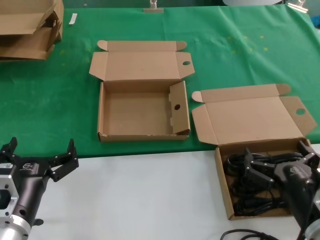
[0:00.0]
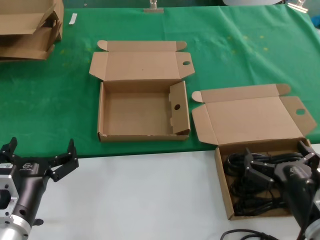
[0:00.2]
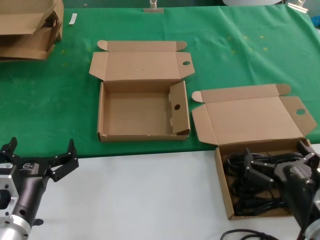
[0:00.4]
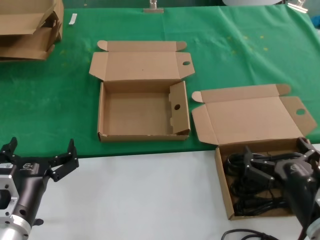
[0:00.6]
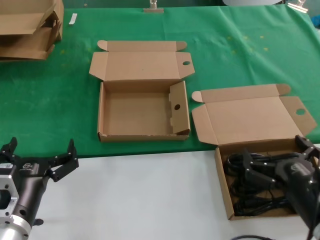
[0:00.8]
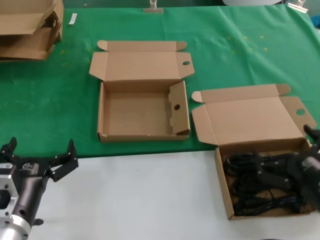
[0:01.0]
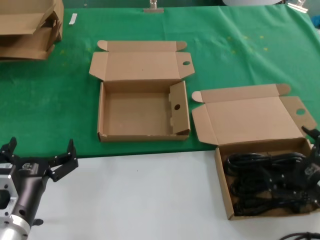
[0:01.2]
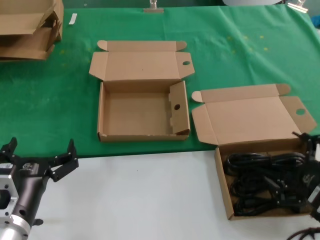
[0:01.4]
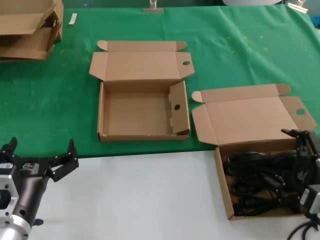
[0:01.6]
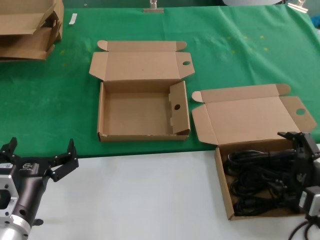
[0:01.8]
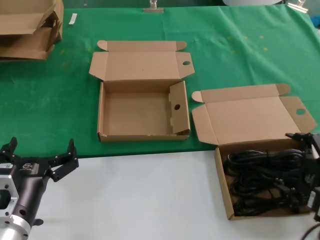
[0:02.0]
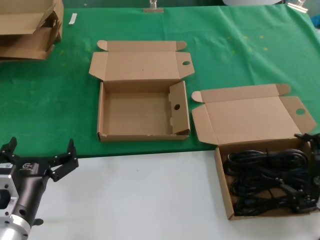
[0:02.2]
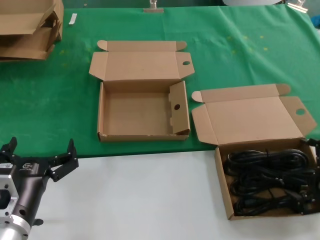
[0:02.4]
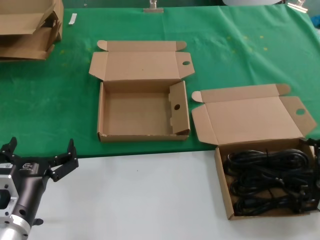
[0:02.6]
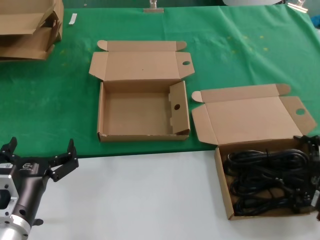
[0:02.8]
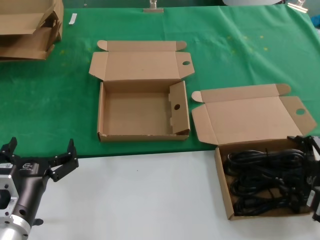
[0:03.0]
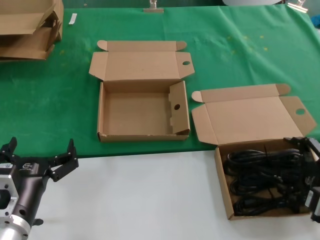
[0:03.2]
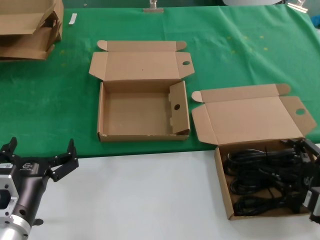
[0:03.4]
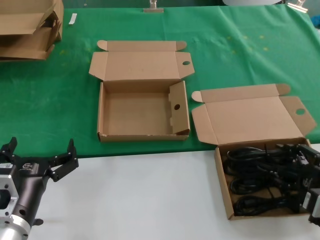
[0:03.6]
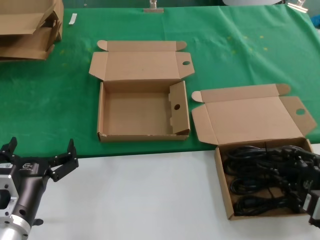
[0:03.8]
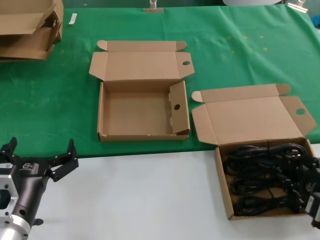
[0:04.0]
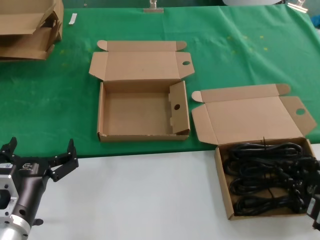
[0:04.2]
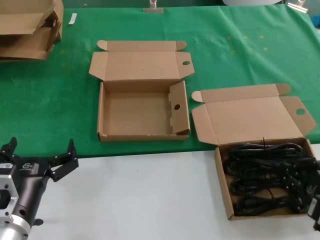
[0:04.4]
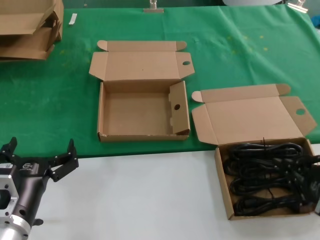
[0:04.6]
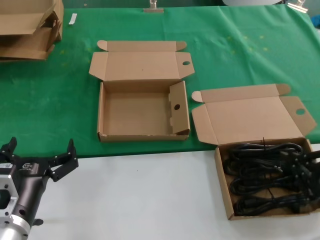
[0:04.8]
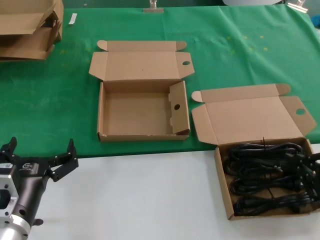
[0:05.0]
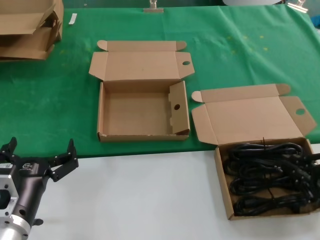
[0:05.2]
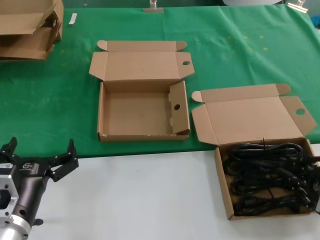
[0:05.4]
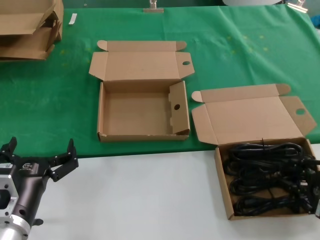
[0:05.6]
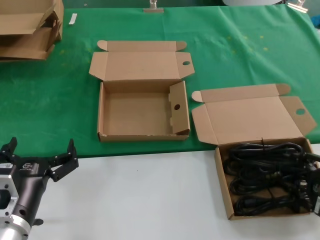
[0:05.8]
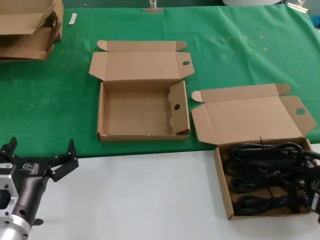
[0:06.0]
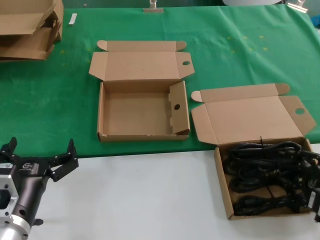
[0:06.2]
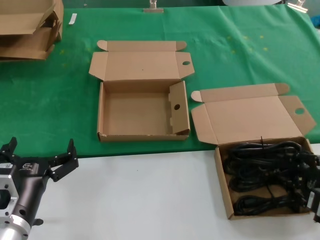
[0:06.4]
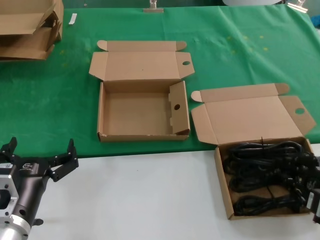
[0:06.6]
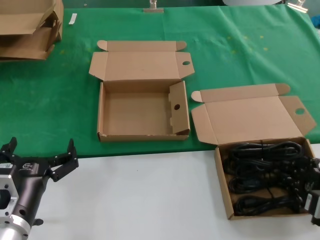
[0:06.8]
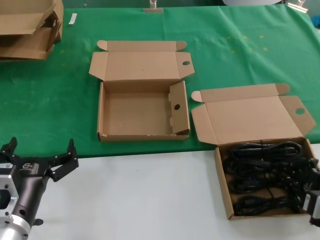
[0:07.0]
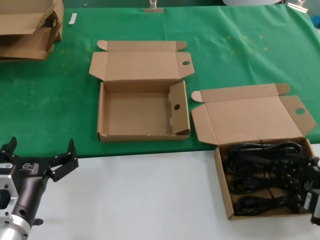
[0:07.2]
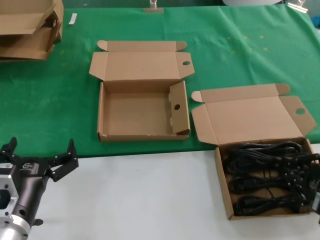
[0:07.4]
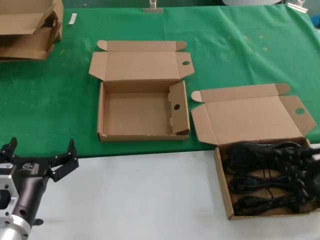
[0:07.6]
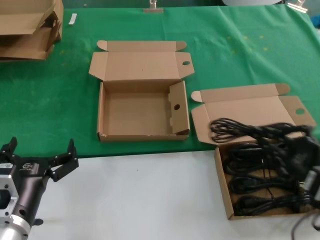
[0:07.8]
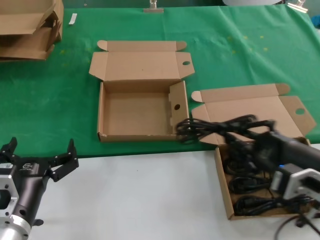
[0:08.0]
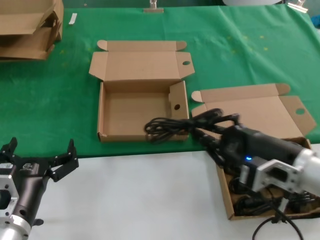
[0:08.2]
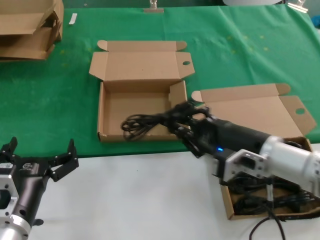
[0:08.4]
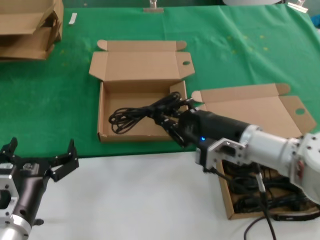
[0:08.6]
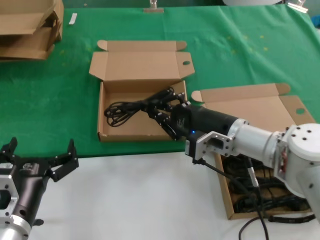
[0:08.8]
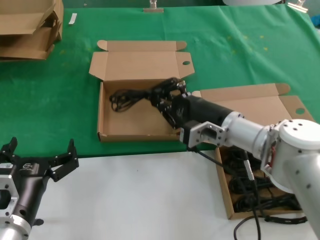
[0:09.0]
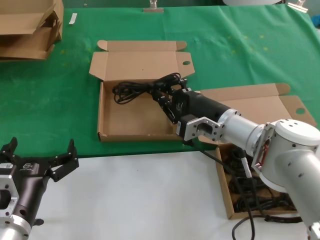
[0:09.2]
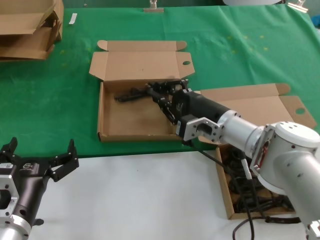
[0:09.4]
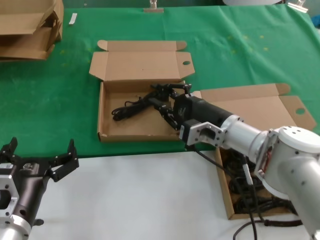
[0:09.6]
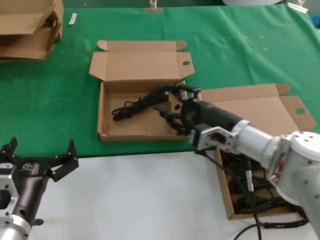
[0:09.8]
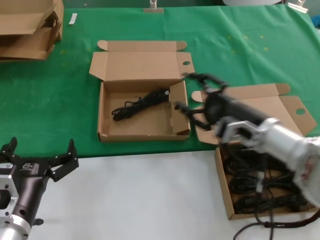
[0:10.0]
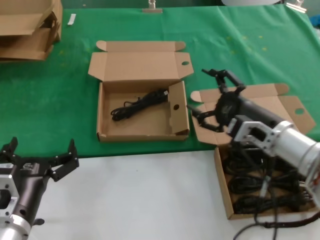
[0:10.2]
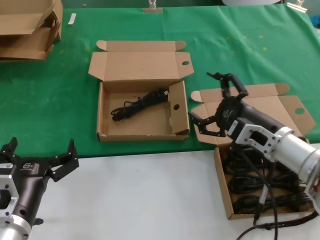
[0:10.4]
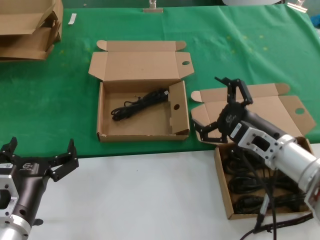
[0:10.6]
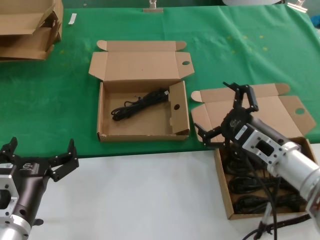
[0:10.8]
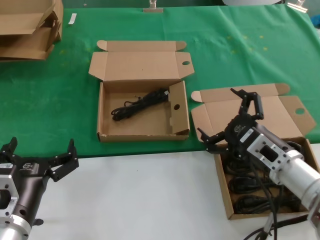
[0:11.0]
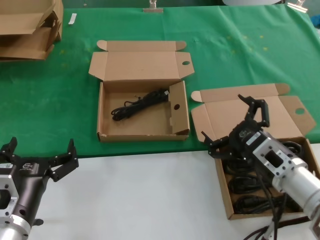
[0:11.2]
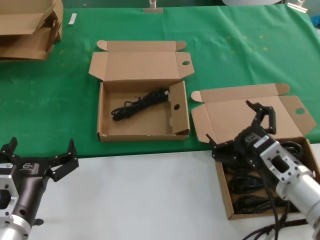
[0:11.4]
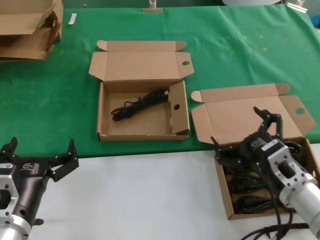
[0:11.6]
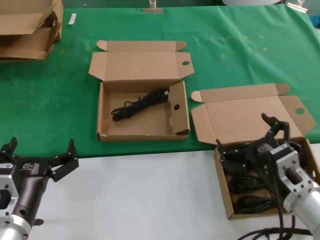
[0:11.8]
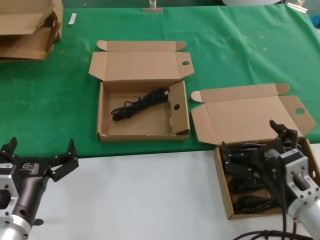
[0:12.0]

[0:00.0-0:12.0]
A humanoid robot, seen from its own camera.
Task of the whole recording: take the parts from the box containing them and put them into an empty box.
Step, 0:00.0 to 0:06.2: Grasp the data cable.
Step, 0:06.6 to 0:09.4: Place the data cable in the another box.
0:00.0 to 0:01.6: The right hand is displaced to the right by about 10 cm.
0:01.6 to 0:04.4: The hands make only small movements.
0:06.0 to 0:07.6: The right hand ends up about 5 cm from where it was.
0:07.6 to 0:09.0: The right hand goes roughly 30 cm forward and to the left.
0:09.0 to 0:10.4: The right hand shifts approximately 5 cm to the right.
0:10.4 to 0:12.0: The right hand shifts some 15 cm backward and downward.

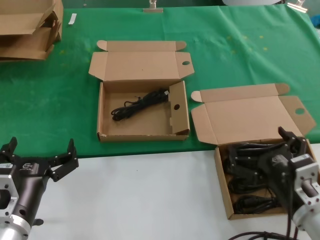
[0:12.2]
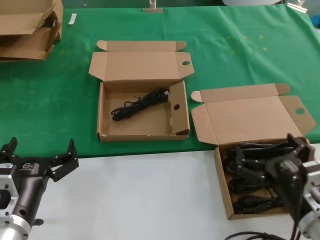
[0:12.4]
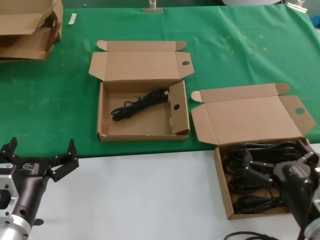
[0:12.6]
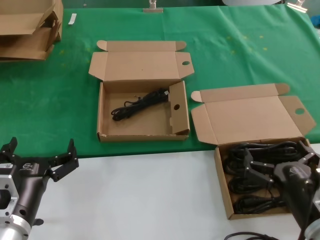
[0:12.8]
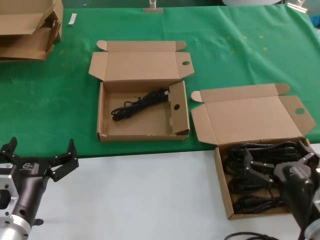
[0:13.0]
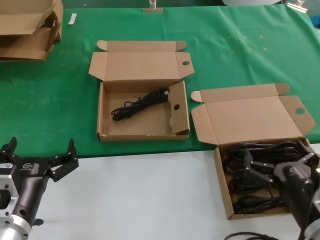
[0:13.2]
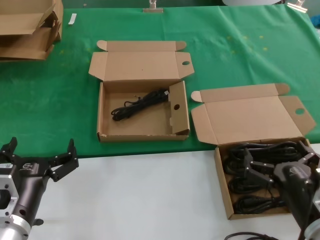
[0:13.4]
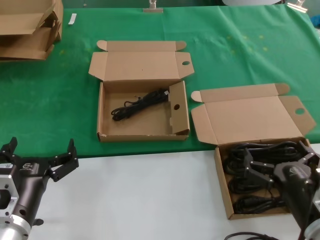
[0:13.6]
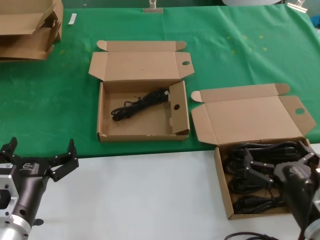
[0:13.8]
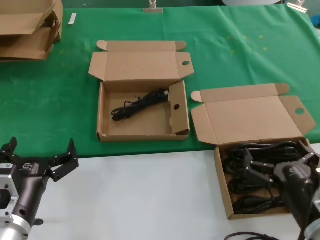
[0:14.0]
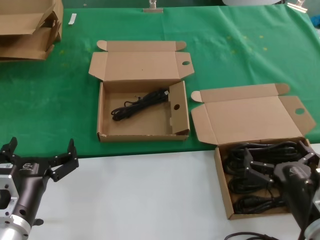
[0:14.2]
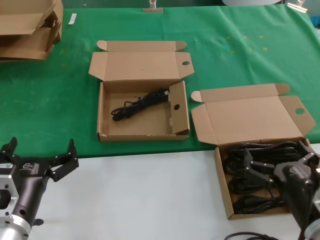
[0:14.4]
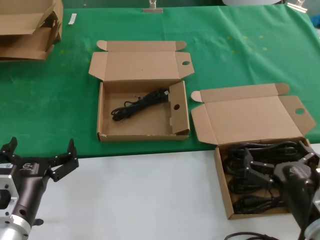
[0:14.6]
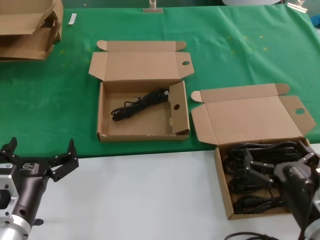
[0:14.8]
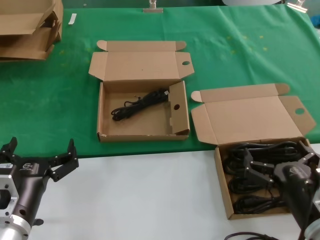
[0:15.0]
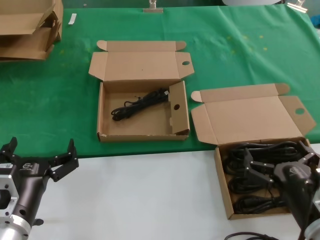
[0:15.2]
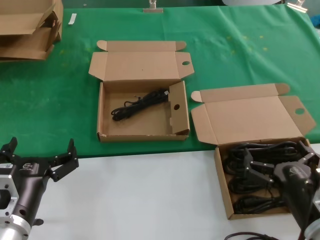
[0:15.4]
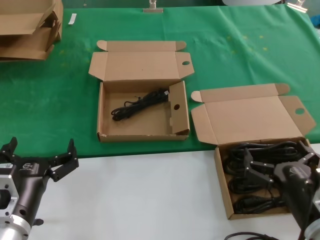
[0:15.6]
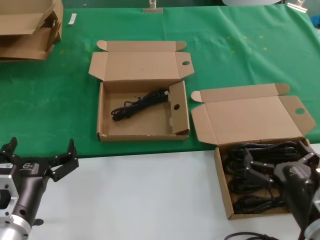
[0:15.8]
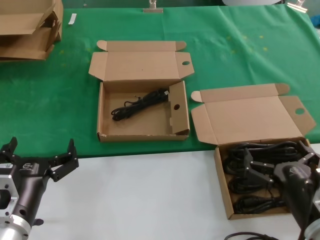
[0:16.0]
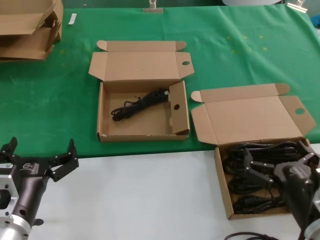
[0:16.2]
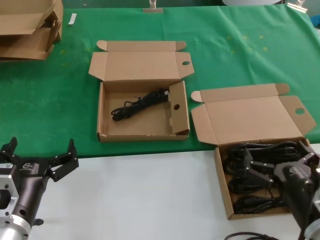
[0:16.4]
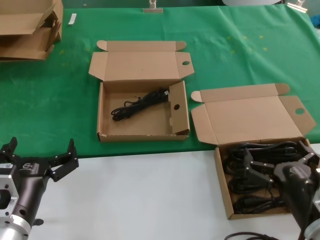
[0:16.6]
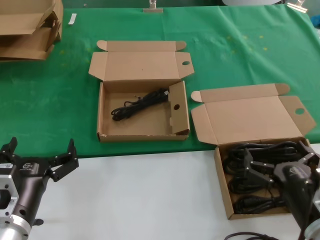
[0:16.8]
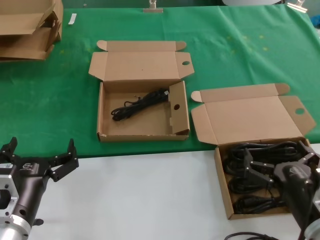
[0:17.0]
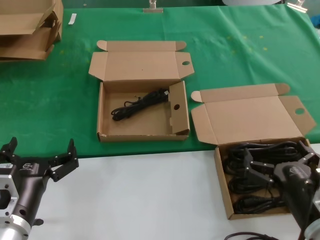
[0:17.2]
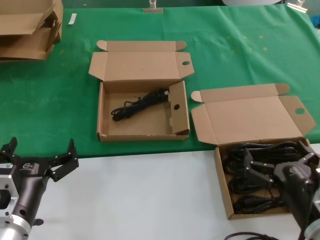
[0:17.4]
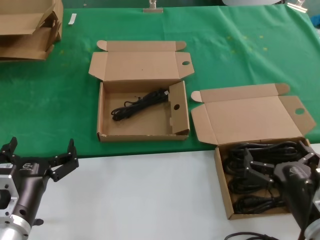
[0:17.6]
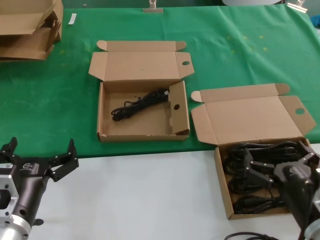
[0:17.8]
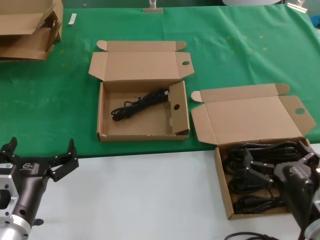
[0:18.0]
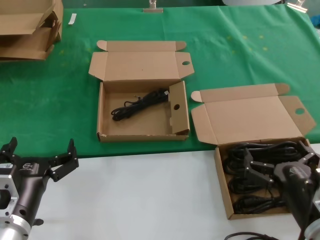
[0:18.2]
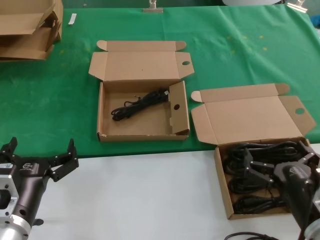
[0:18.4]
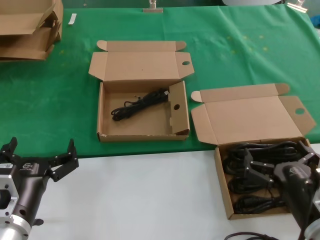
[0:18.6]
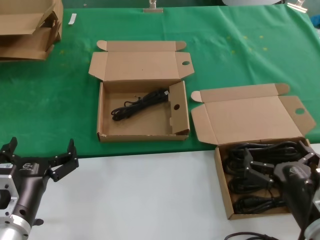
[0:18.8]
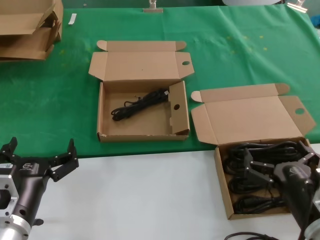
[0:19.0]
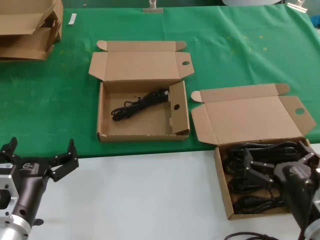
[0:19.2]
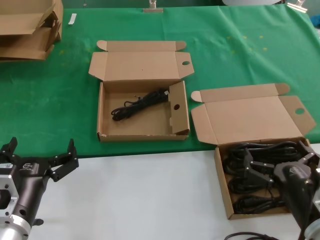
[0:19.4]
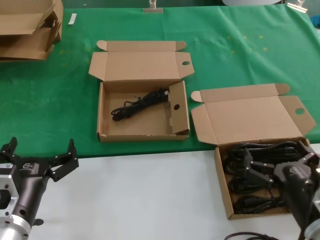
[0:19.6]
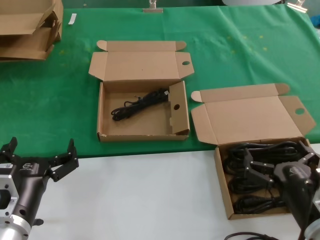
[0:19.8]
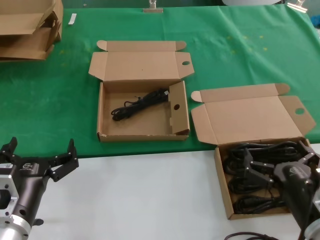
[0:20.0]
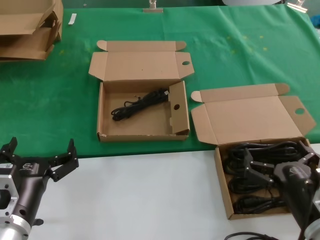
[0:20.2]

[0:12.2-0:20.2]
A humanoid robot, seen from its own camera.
Task of the whole recording: take the parts from the box containing them and put them into an empty box.
0:12.2 to 0:13.8: The hands make only small movements.
0:13.8 to 0:20.2: Neither hand changes place.
